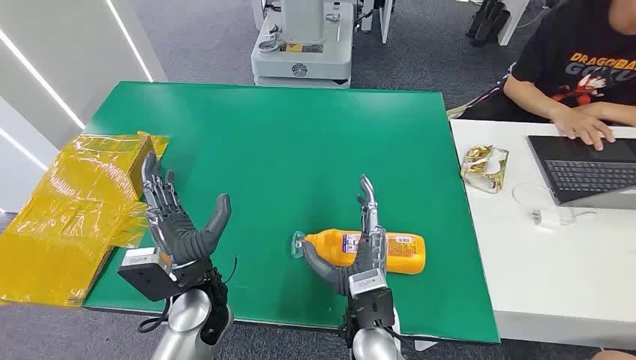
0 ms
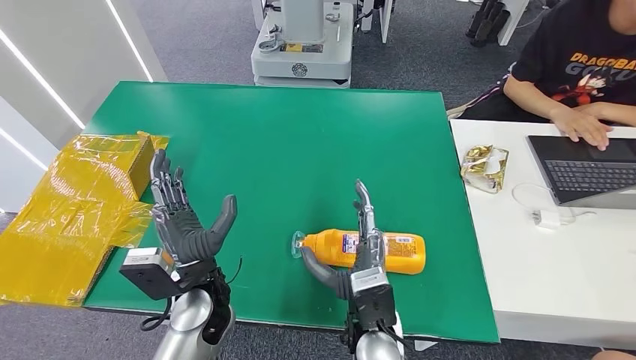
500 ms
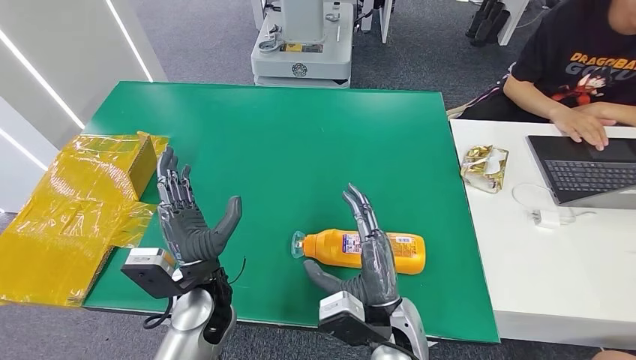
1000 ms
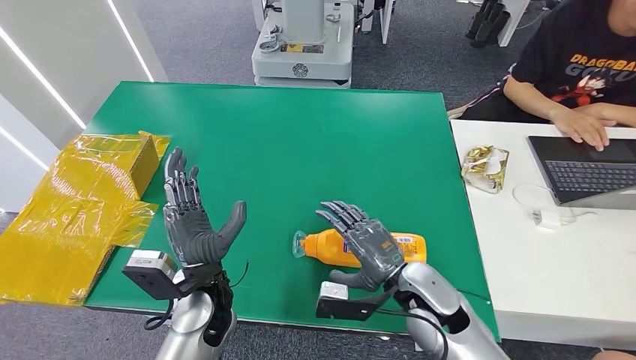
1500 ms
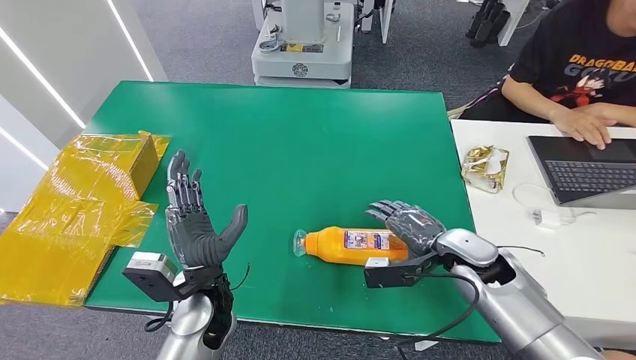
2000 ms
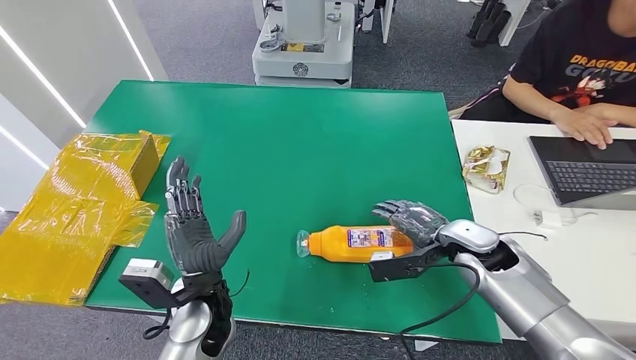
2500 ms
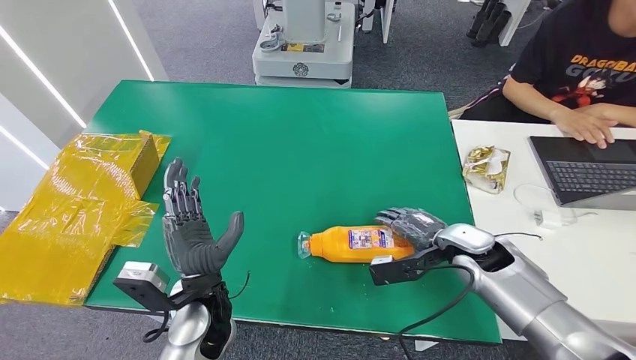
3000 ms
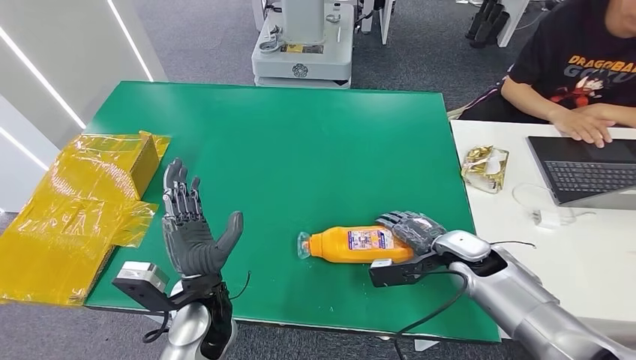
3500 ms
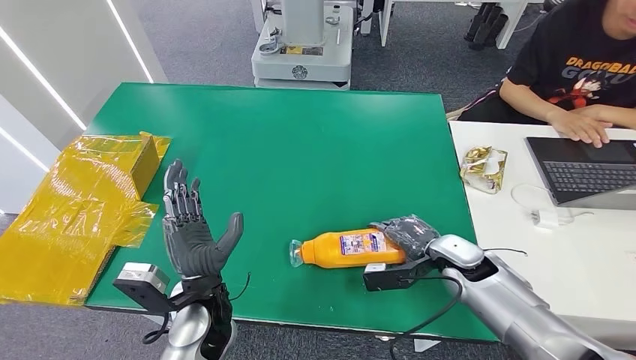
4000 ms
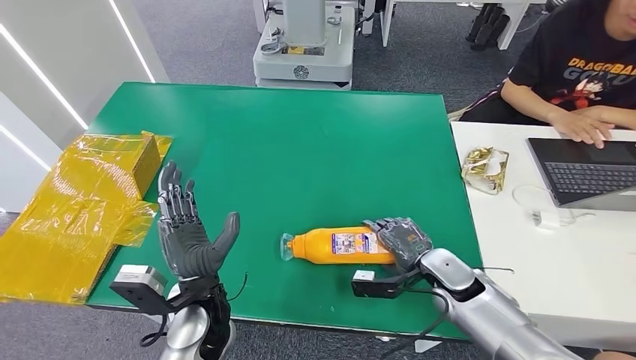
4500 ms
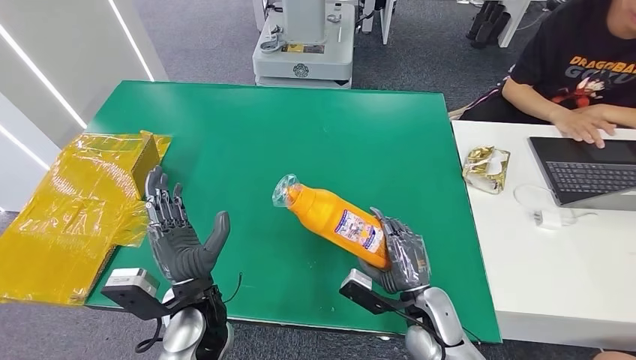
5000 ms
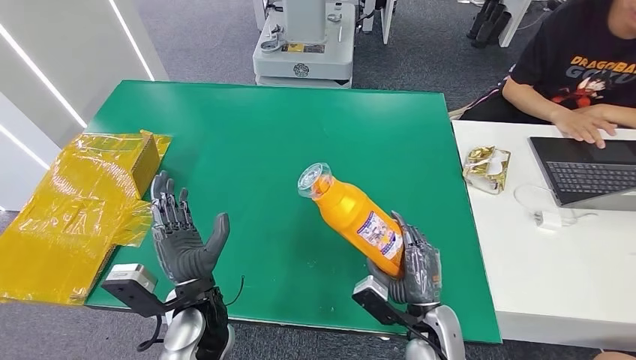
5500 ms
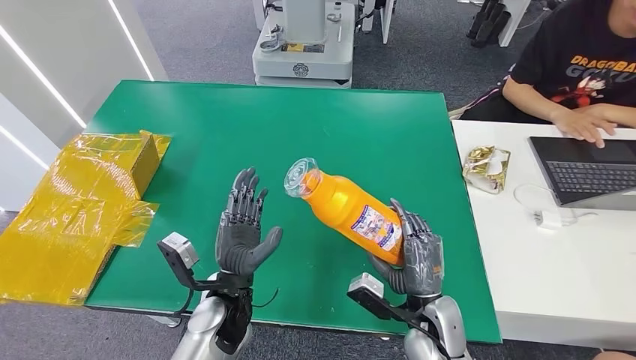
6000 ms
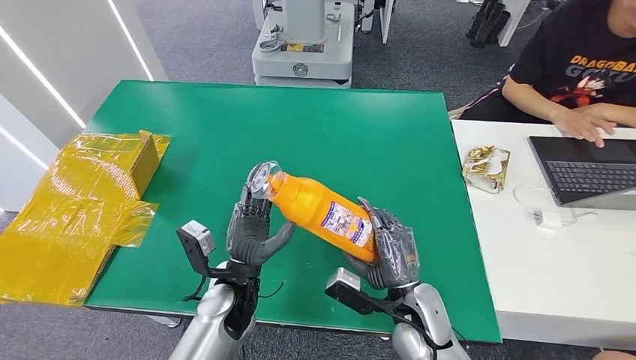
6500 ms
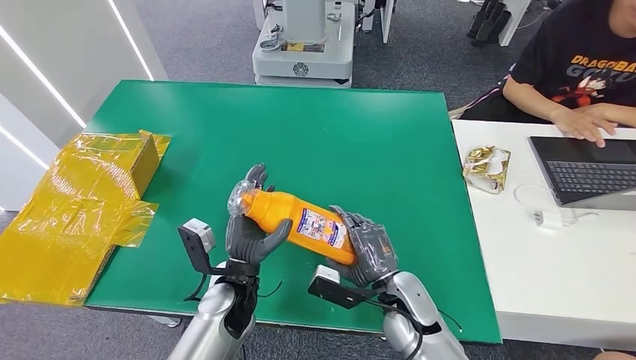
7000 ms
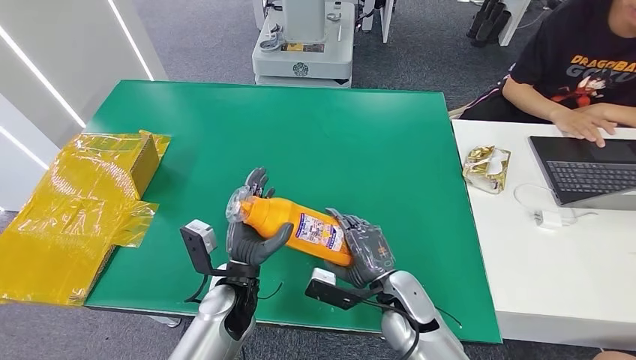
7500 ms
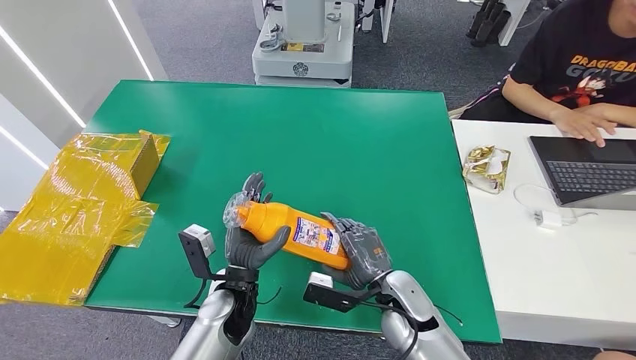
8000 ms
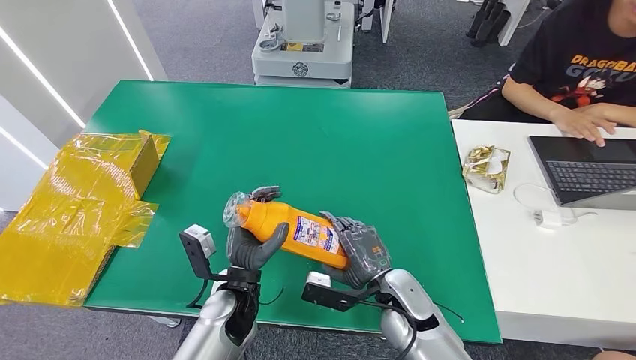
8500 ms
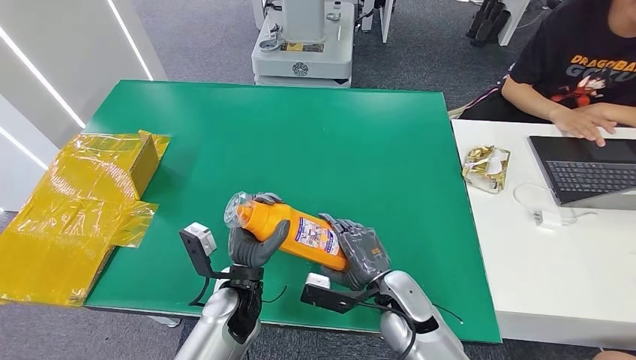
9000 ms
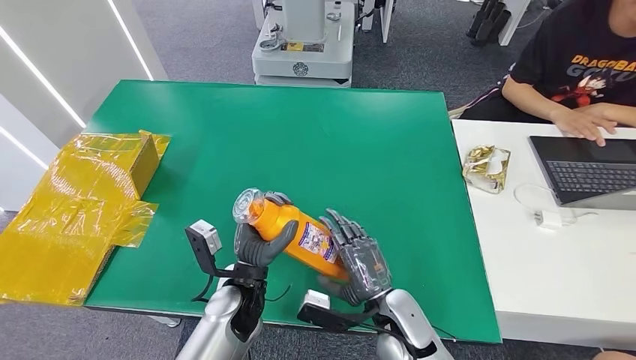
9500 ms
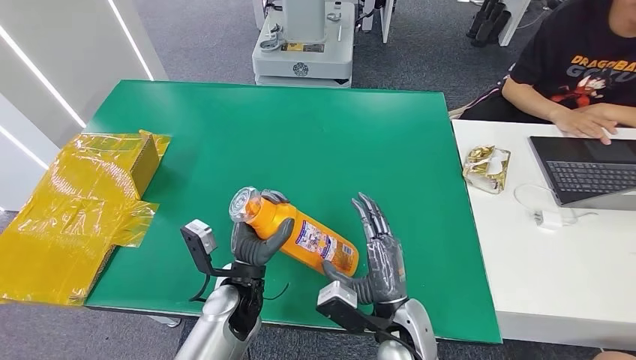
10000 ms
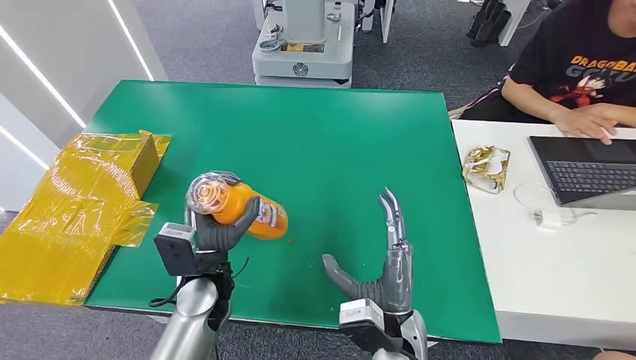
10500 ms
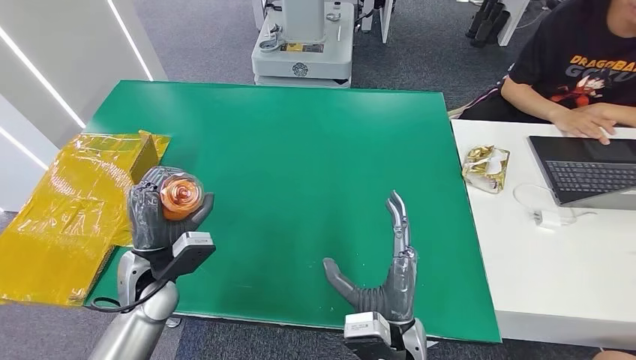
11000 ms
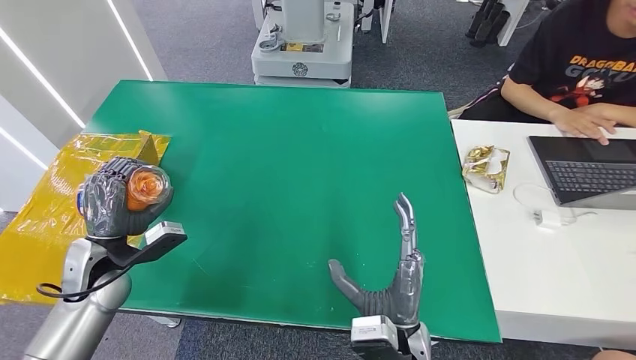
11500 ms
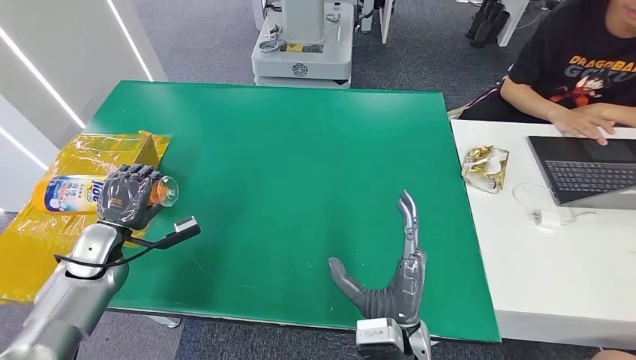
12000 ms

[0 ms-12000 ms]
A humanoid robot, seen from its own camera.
Step, 0 ms to 5000 ms: Pick up the bottle from the table.
2000 ms to 4000 ms: The hands make only small movements.
6000 ms to 8000 ms: The right hand shifts by about 5 cm.
8000 ms to 10000 ms: The right hand goes some 5 cm backward.
10000 ms to 12000 ms: The left hand is displaced to the left by roughly 30 cm.

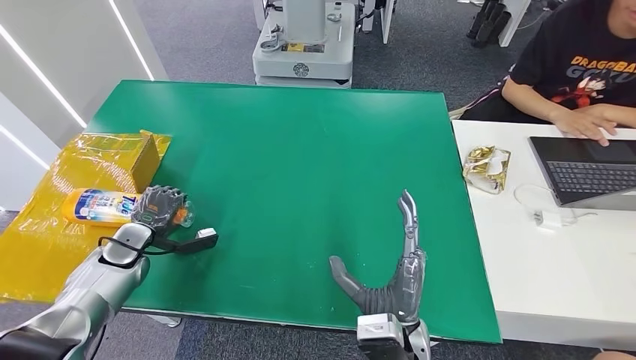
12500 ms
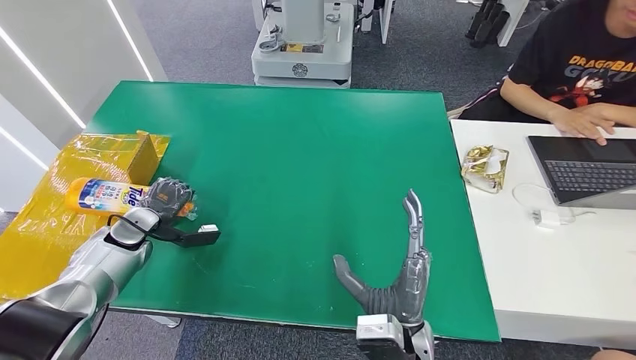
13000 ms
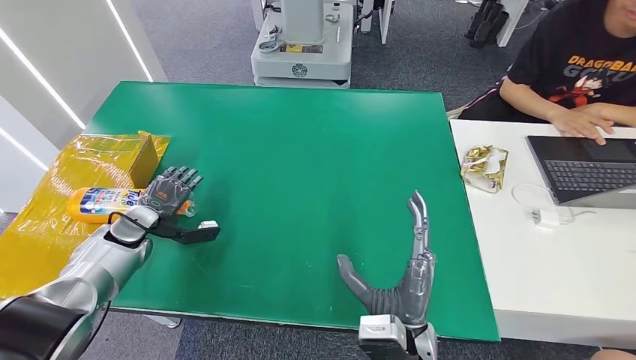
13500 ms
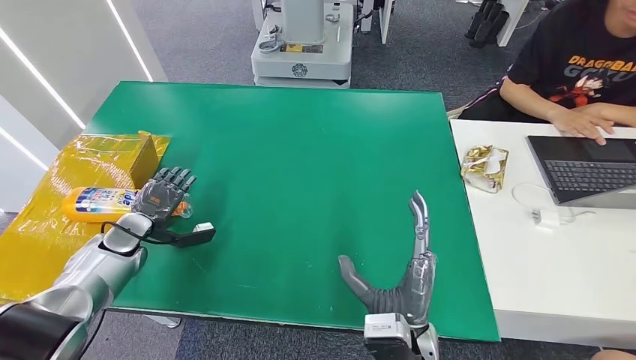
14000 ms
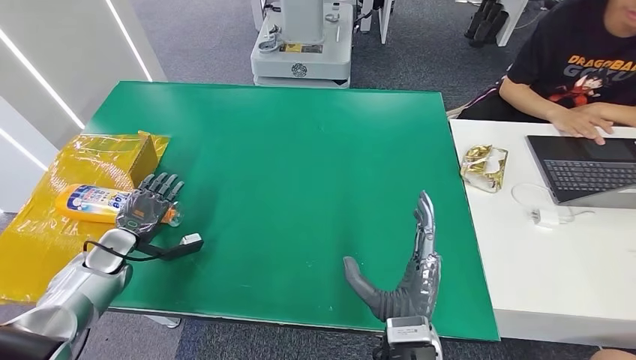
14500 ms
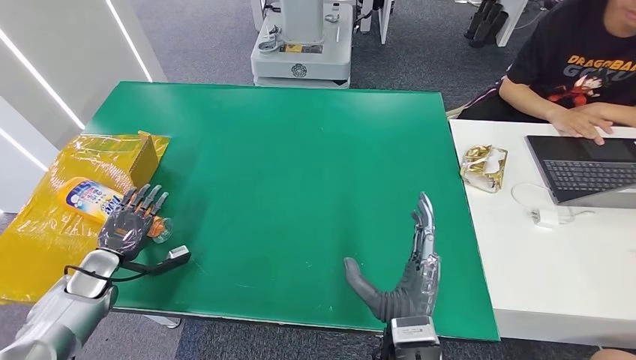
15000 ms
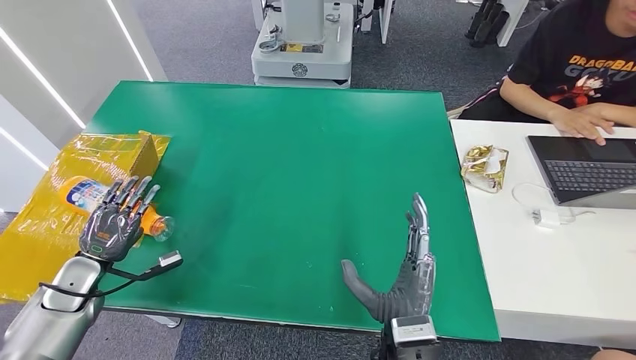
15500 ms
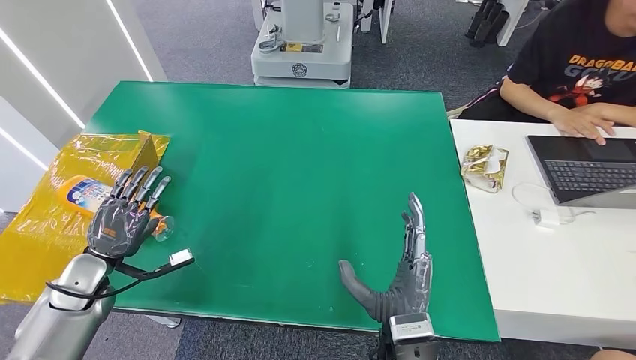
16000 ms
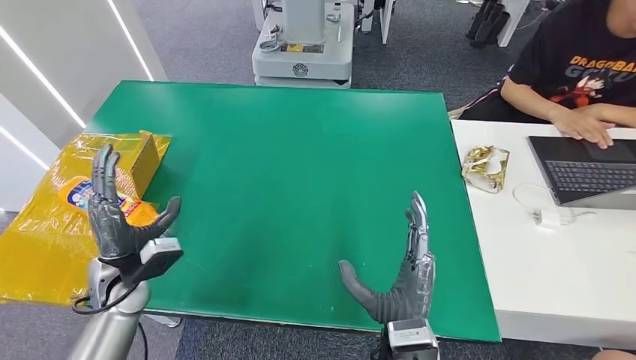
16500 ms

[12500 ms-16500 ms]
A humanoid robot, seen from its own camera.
Step, 12500 ms to 16500 ms: Turn the bottle to the front side.
12500 ms to 14500 ms: The hands move only a little.
14500 ms to 16500 ms: The left hand goes approximately 15 cm to the right, backward and upward.
